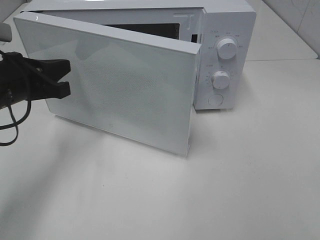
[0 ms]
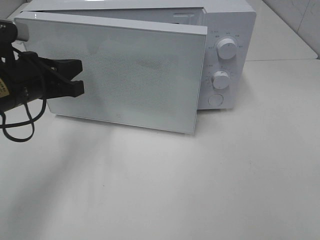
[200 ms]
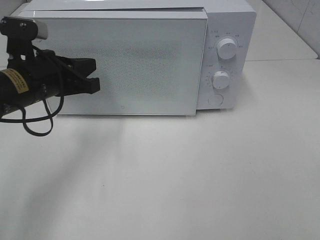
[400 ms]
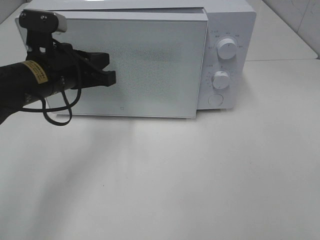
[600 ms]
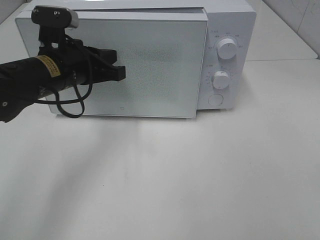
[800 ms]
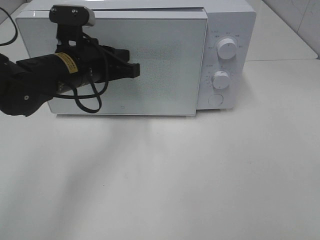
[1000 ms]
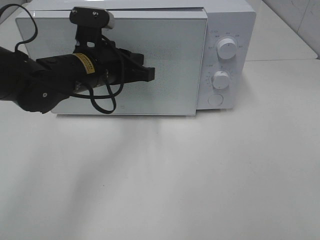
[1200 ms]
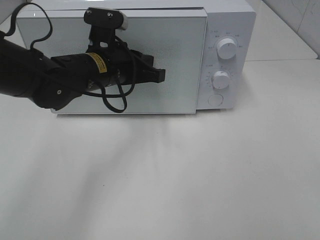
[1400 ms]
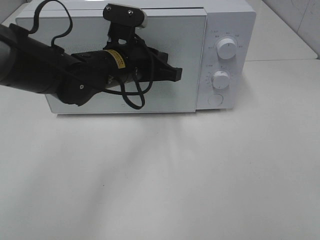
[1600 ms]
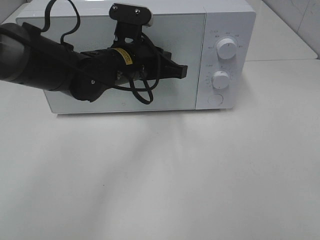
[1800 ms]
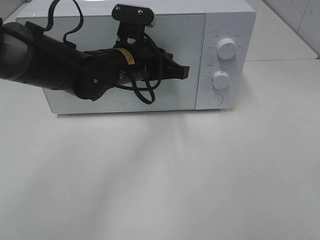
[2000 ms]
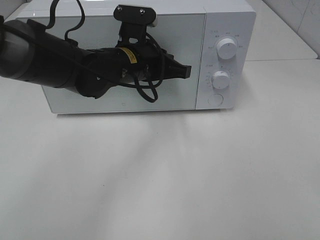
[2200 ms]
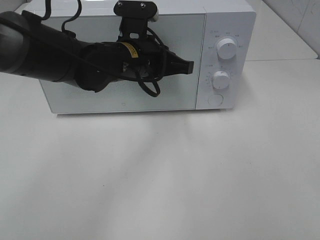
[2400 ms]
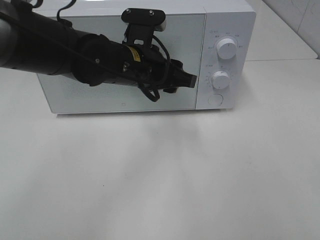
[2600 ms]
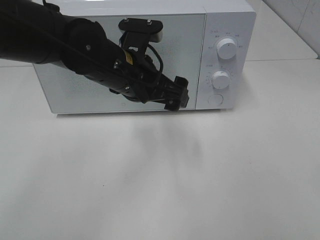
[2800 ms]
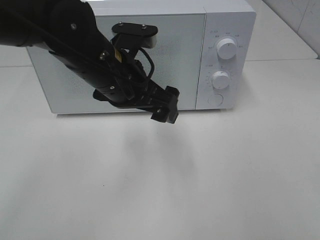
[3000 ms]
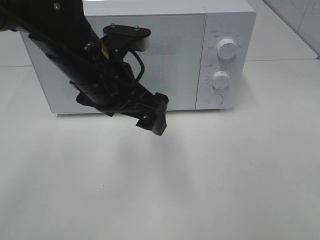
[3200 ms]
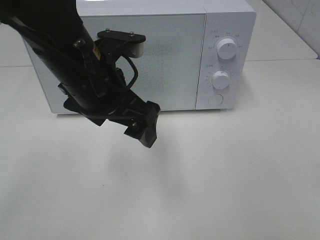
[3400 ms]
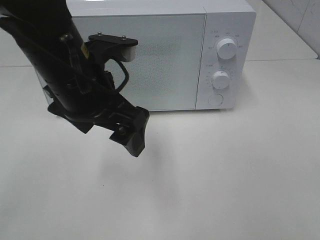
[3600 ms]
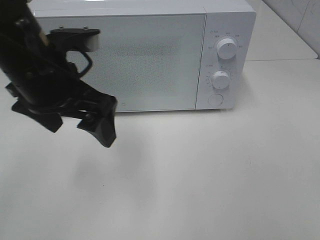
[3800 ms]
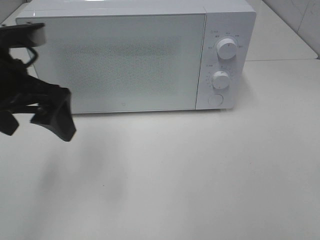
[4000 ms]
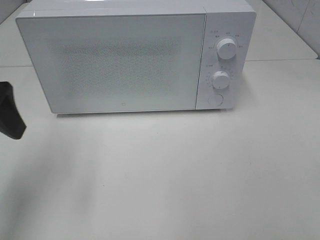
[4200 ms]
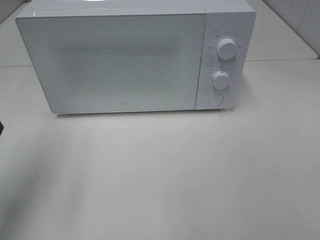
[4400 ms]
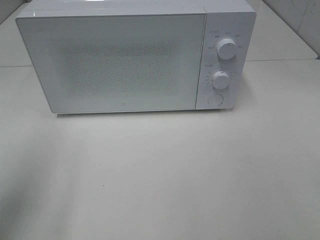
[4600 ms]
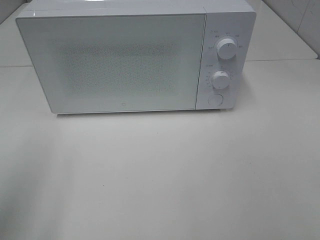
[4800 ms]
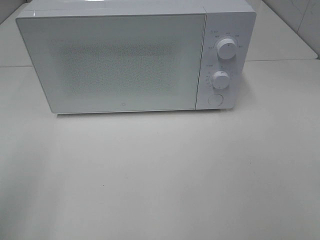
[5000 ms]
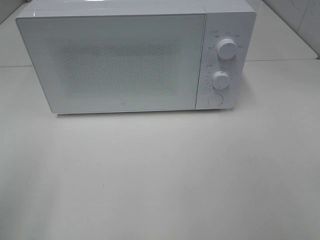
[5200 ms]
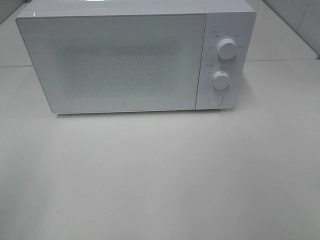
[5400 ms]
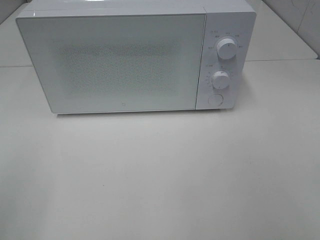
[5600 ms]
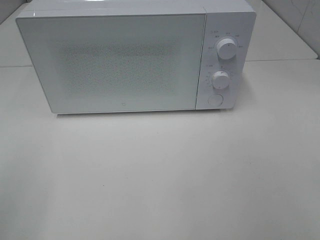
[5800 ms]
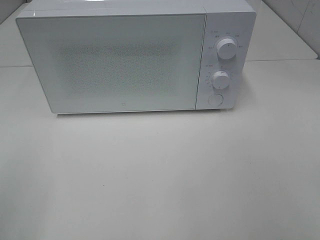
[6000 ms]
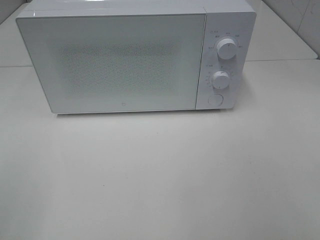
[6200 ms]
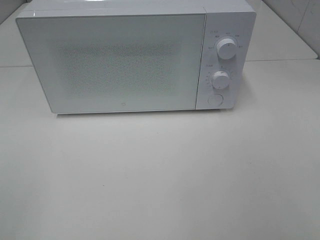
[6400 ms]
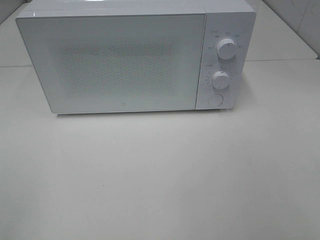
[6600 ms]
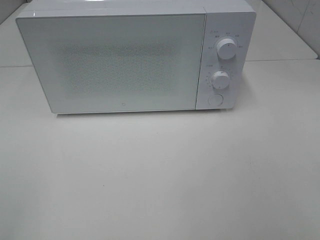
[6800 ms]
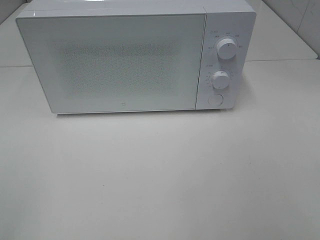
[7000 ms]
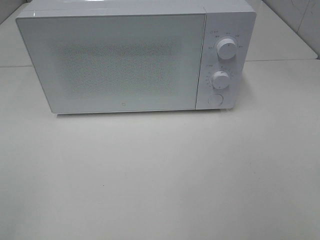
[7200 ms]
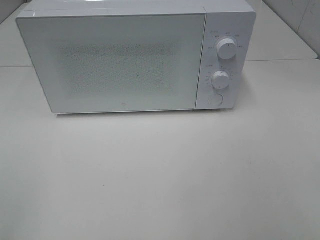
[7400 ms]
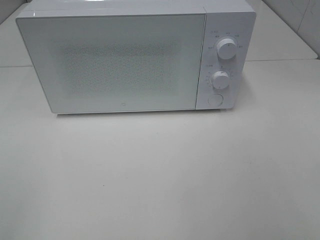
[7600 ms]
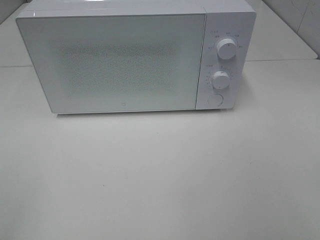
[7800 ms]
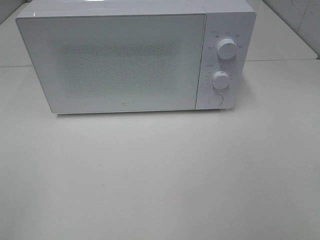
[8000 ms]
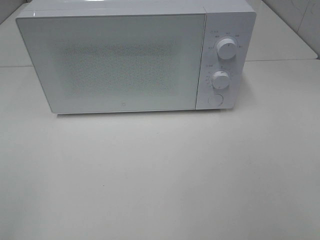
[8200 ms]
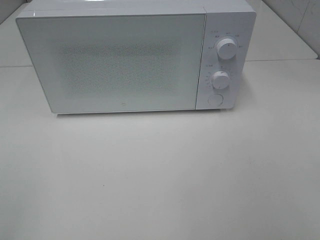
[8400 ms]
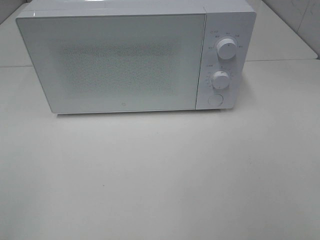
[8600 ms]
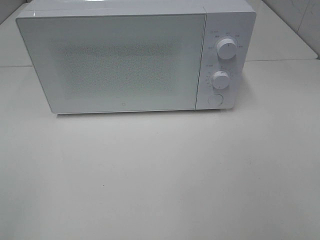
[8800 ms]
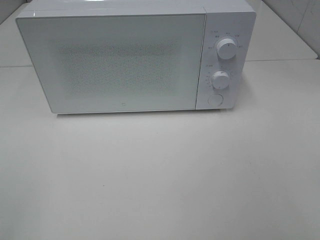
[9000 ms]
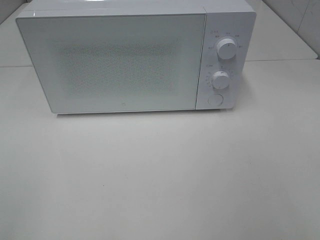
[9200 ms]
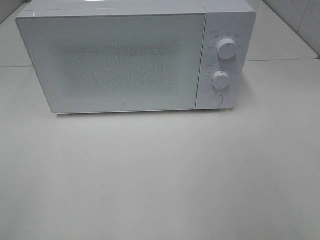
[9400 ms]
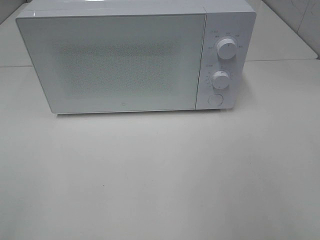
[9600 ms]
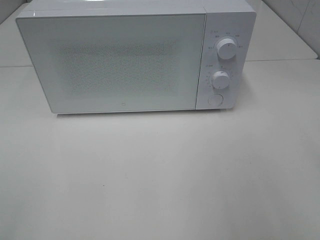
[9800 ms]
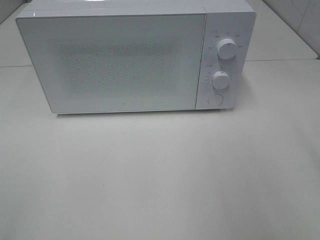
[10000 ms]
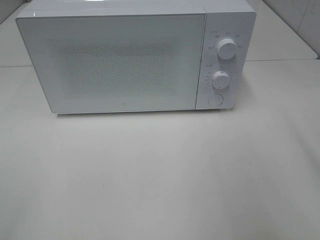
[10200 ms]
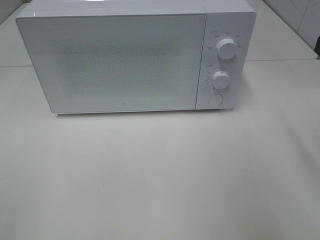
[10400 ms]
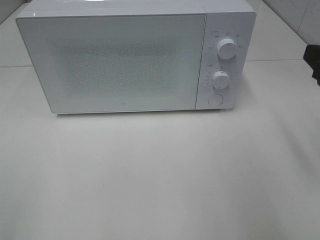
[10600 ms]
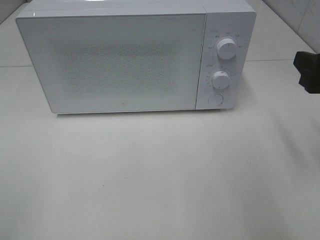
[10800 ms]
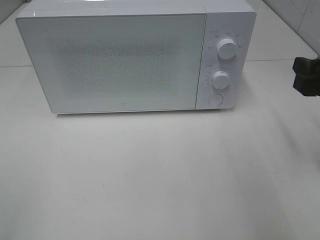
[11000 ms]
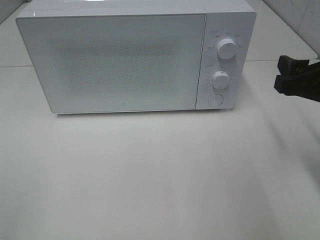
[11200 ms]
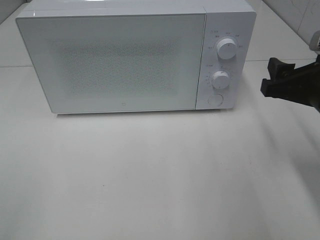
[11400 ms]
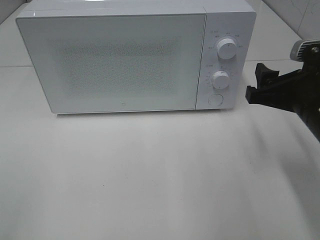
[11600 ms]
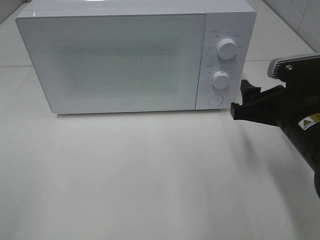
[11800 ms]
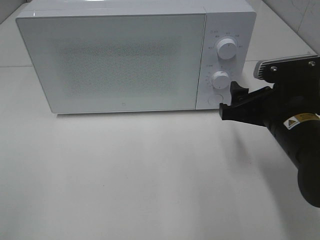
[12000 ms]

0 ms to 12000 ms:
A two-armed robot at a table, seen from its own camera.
Task of the whole recording: Heat the burger.
Step, 0 ms to 2200 ms: Left hand: close the microwave door.
0 ms to 1600 ms: The left gripper shifts roughly 15 cm to the right and forward.
1600 ms to 3000 ms: The left gripper is displaced backward by about 5 cm, and opens.
3000 ms to 4400 ms: The left gripper heads to the left and backward, covering some 25 cm.
4400 ms to 6000 ms: The left gripper moves backward, some 15 cm.
7600 ms to 9000 ms: The two grippers keep their place.
10400 ms to 12000 ms: The right gripper is displaced downward and to the left by roughly 15 cm.

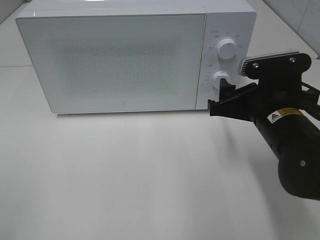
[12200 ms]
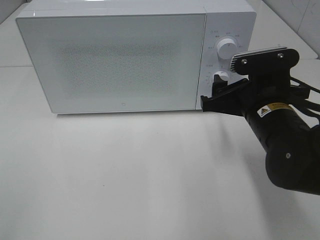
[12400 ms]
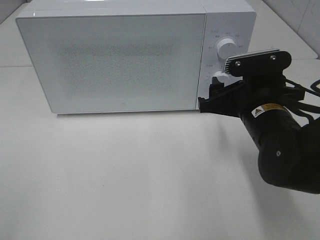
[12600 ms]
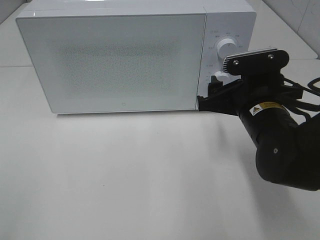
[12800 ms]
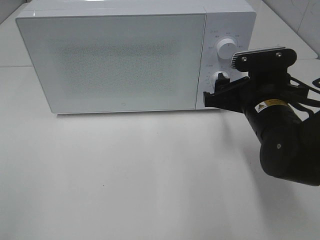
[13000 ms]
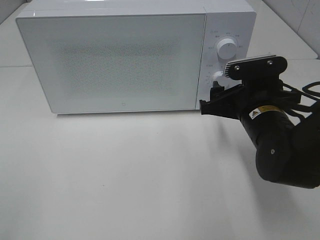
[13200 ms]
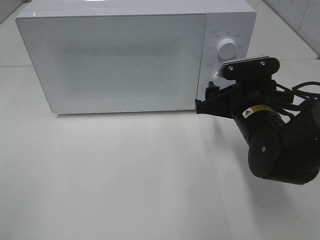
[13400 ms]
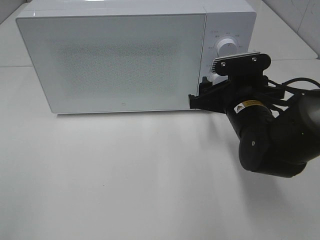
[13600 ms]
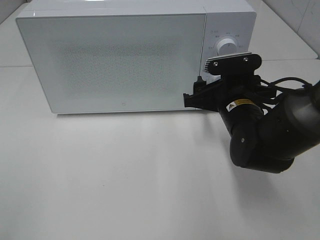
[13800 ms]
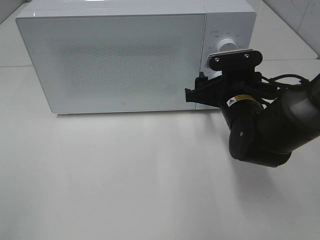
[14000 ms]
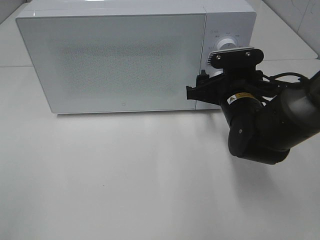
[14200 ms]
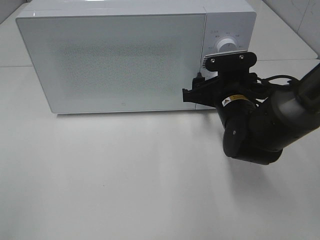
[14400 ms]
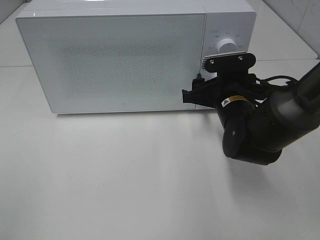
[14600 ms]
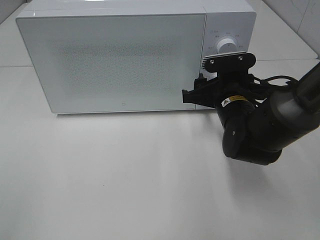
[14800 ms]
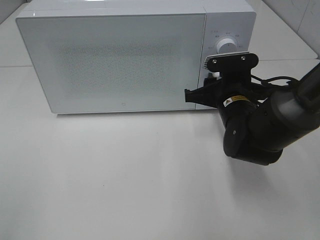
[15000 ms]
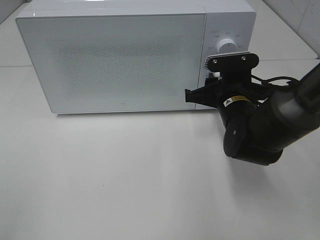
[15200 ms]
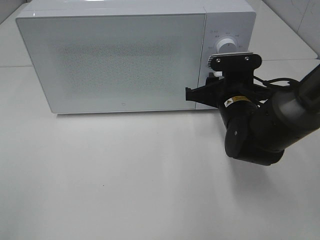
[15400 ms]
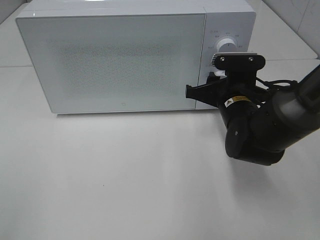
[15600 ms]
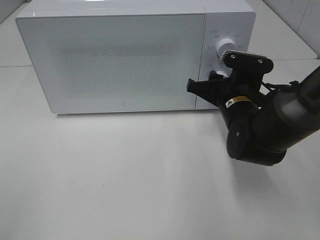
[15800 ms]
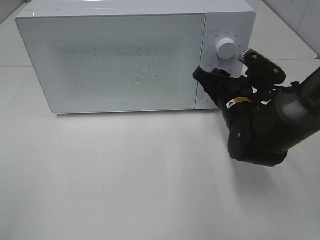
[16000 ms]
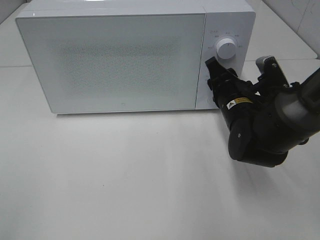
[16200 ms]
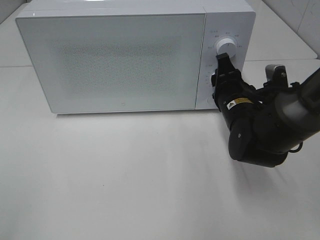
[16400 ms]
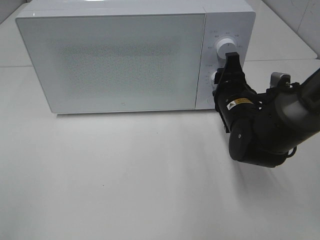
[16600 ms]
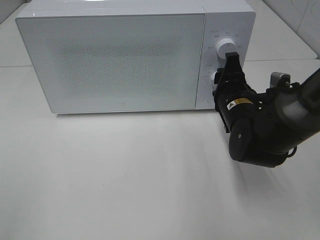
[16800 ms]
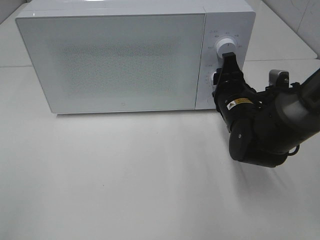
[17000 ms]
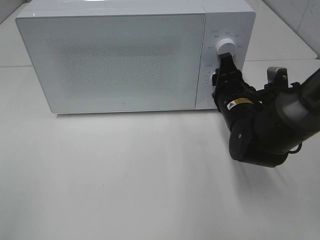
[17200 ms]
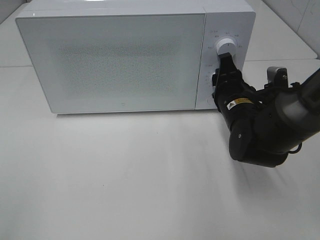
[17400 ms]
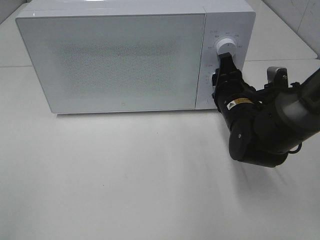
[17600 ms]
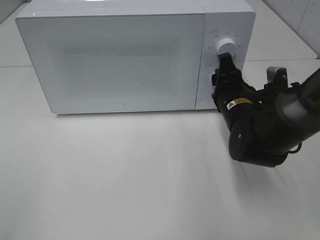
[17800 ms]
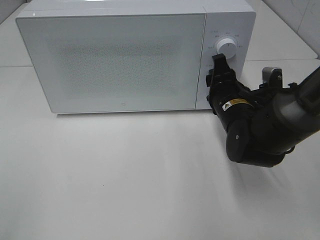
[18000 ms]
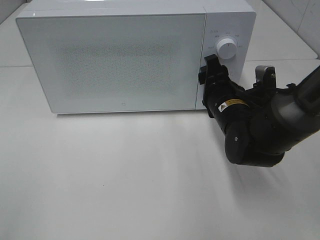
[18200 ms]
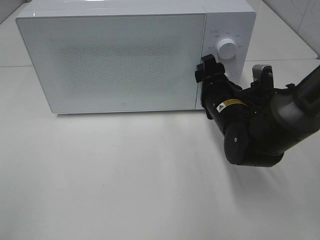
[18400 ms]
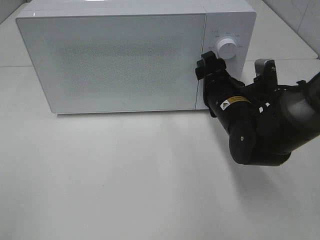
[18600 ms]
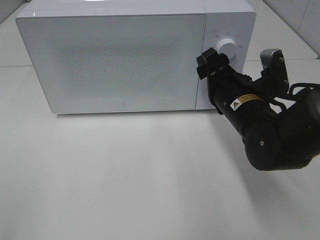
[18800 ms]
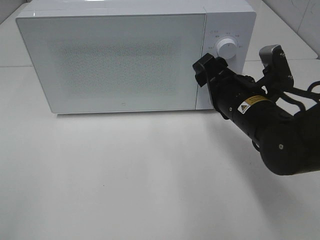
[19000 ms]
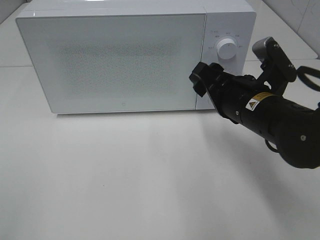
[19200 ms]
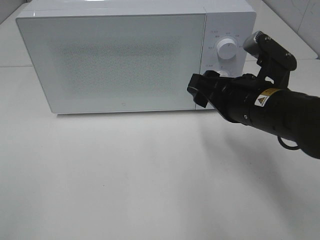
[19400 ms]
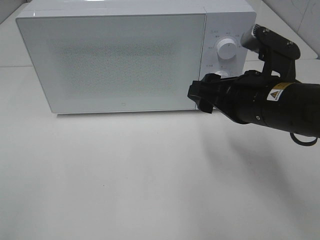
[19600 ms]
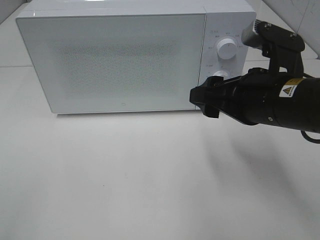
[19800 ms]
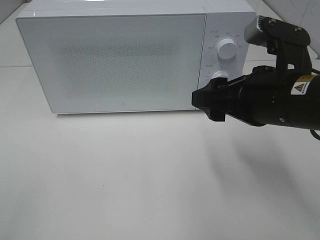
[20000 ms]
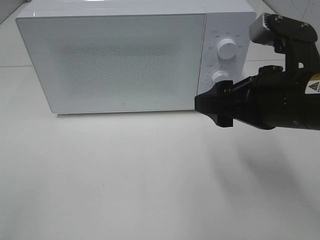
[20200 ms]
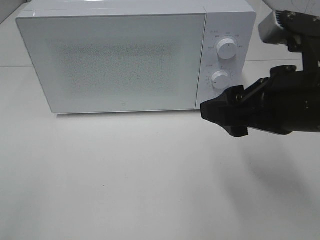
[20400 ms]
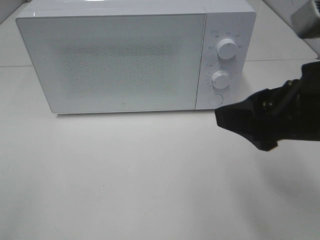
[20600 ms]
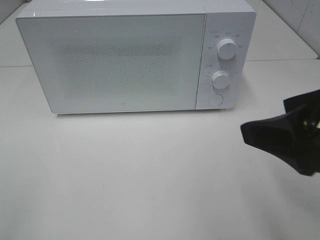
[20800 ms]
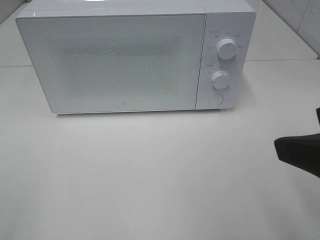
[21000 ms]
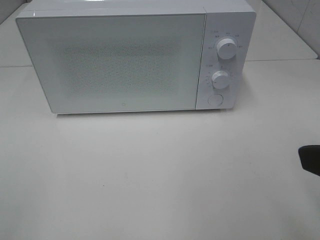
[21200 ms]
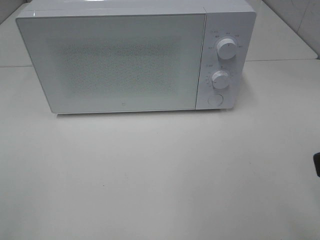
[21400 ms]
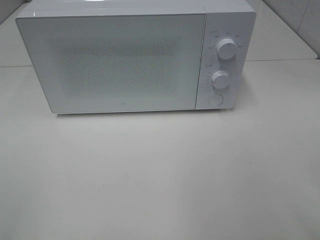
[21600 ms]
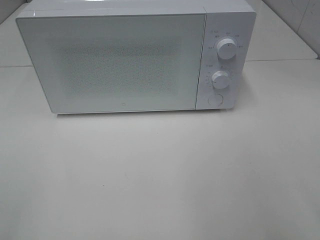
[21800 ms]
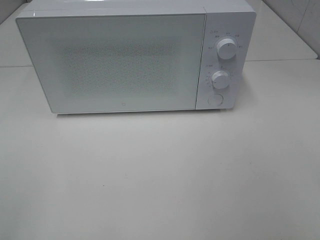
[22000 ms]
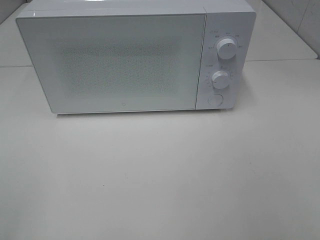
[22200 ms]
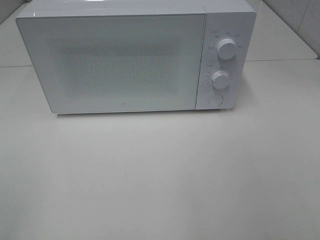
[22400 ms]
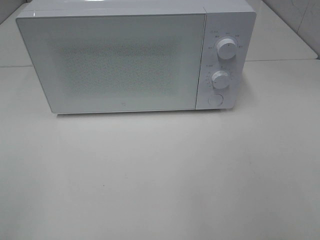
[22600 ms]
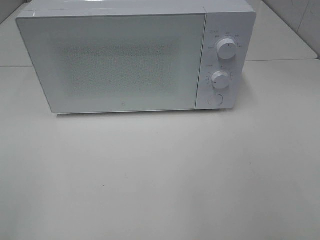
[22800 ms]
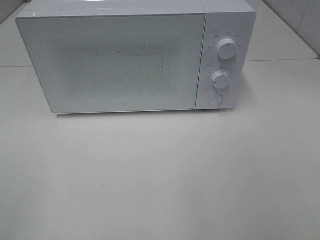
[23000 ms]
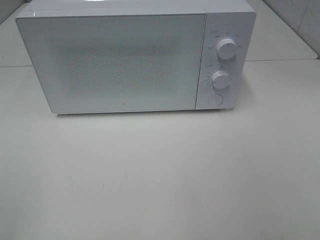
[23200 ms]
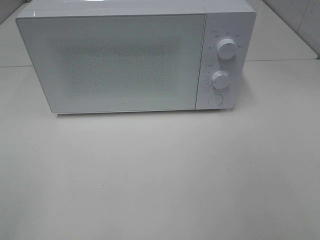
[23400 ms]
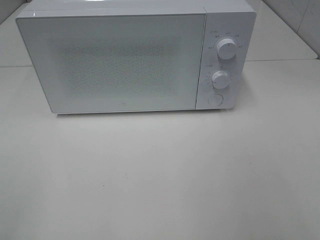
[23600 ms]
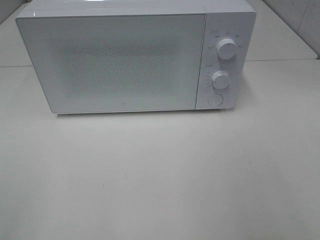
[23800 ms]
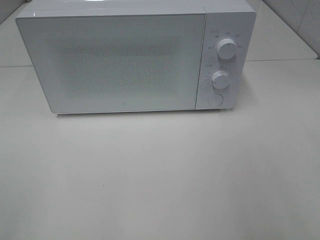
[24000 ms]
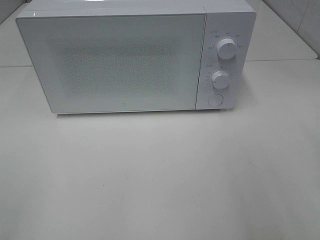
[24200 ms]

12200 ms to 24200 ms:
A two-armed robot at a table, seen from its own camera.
Task of the whole recording: Heat the burger.
Step, 12200 ms to 18000 ms: Right hand: twist timer button.
12200 ms to 13800 ms: The right gripper shifts approximately 5 cm forward.
13800 ms to 15200 ms: The right gripper closes up.
16600 ms to 18200 ms: There are only small adjustments of the grippers.
18200 ms to 19800 ms: The right gripper is displaced upward and backward by some 15 cm.
19800 ms to 21200 ms: The right gripper heads backward, to the right and upward, covering some 20 cm.
21200 ms to 22600 ms: The right gripper heads backward and to the right, covering roughly 10 cm.
